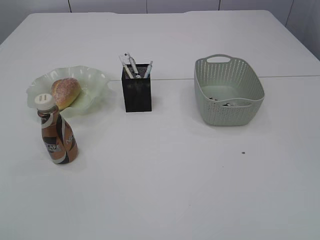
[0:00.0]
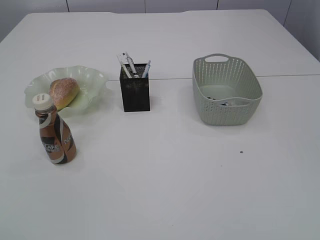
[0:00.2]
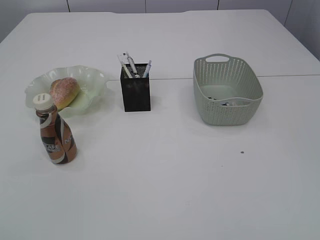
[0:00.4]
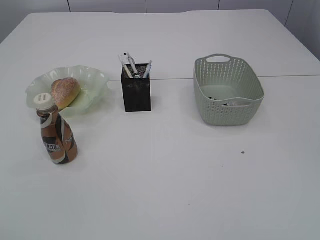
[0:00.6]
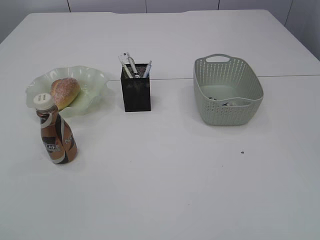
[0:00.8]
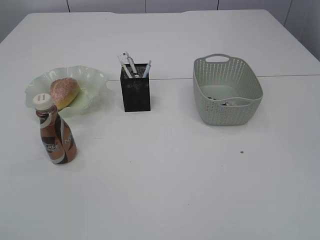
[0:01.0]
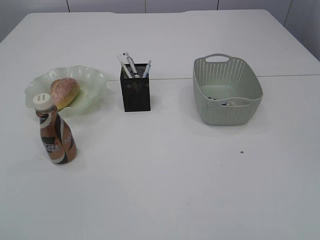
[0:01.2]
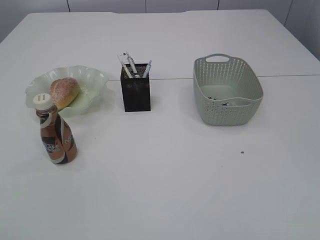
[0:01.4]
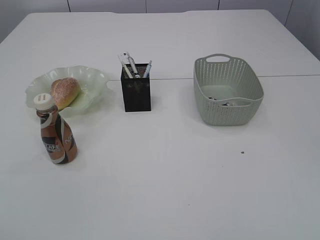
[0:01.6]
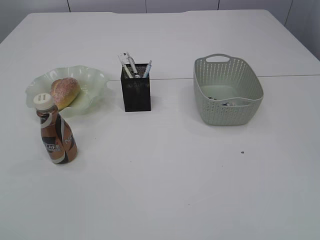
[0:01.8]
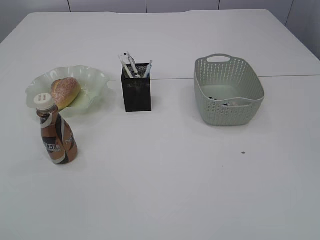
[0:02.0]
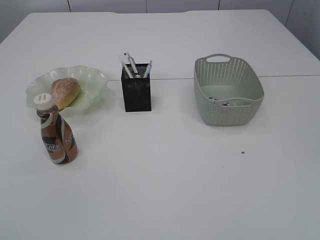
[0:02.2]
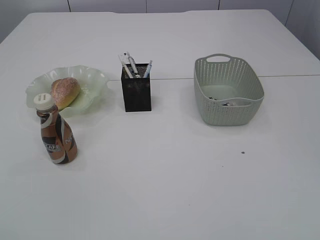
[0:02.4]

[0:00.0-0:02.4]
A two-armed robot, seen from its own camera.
0:00.0 to 0:01.2: The grippers stay close to where they were, moving slightly.
0:01.2 to 0:02.4: Neither gripper changes place.

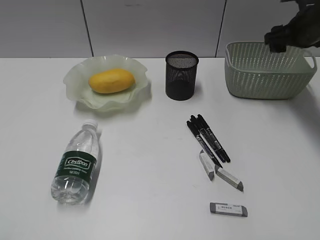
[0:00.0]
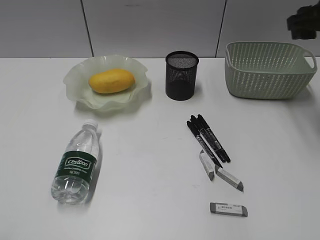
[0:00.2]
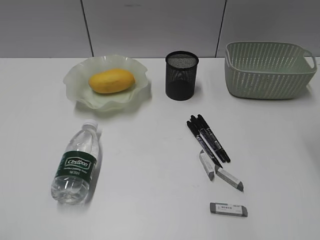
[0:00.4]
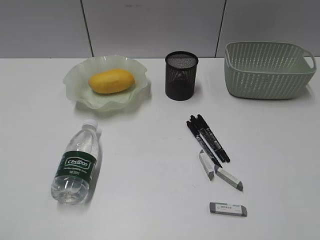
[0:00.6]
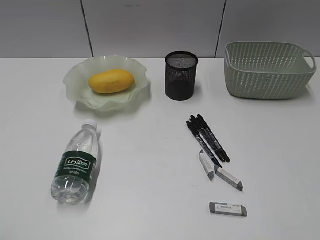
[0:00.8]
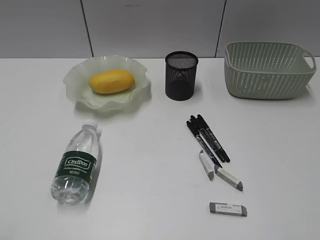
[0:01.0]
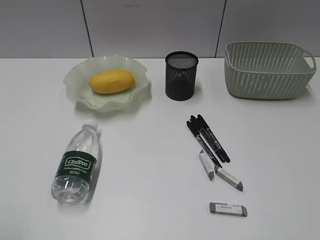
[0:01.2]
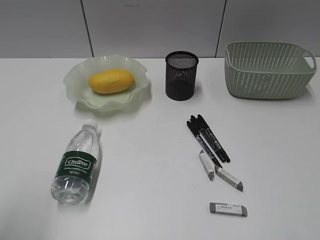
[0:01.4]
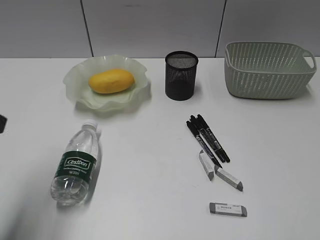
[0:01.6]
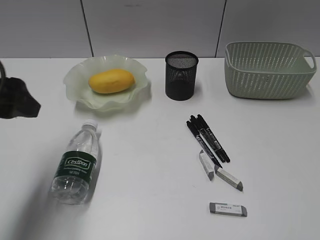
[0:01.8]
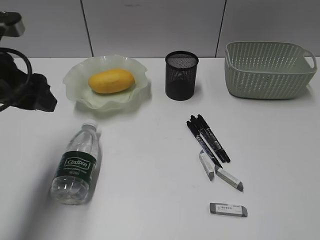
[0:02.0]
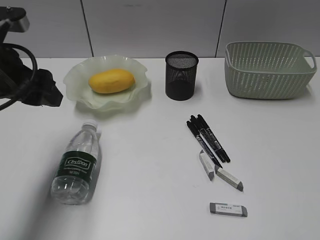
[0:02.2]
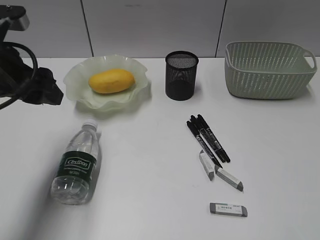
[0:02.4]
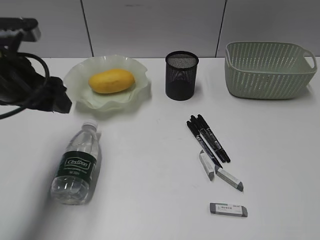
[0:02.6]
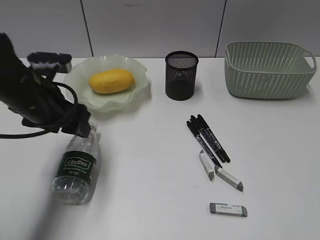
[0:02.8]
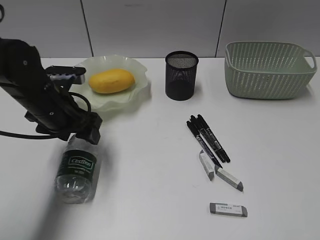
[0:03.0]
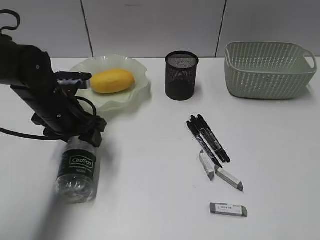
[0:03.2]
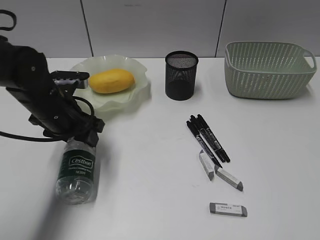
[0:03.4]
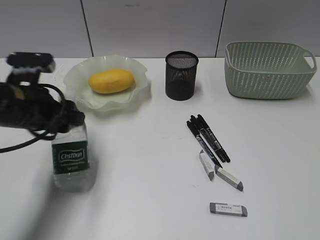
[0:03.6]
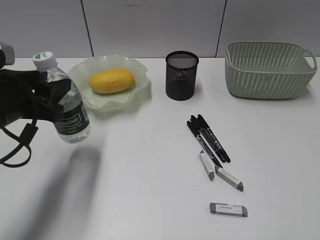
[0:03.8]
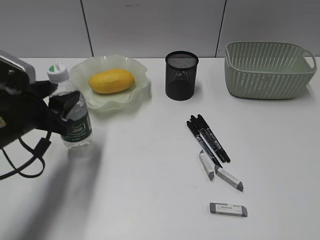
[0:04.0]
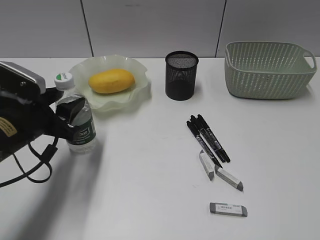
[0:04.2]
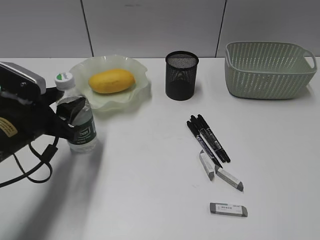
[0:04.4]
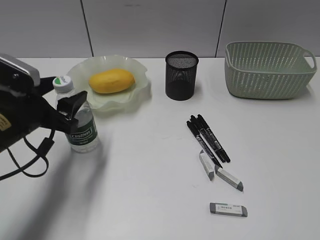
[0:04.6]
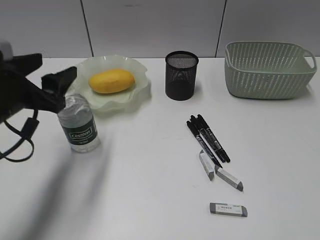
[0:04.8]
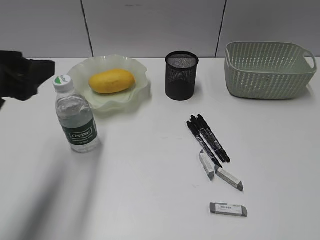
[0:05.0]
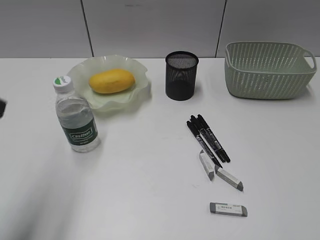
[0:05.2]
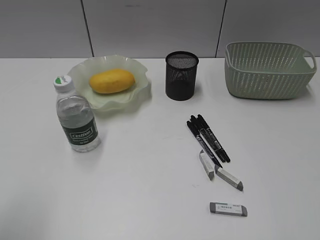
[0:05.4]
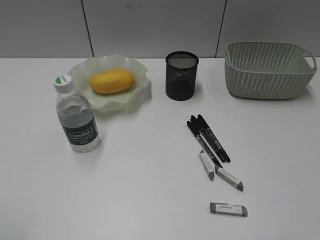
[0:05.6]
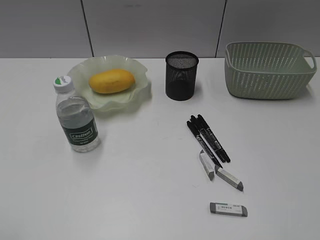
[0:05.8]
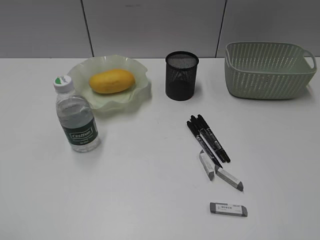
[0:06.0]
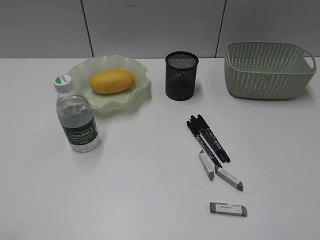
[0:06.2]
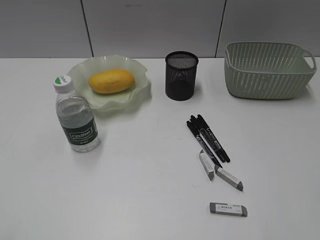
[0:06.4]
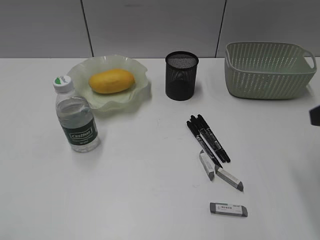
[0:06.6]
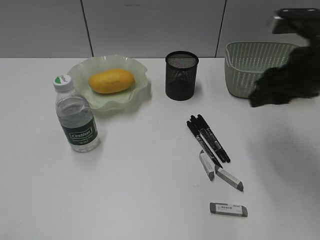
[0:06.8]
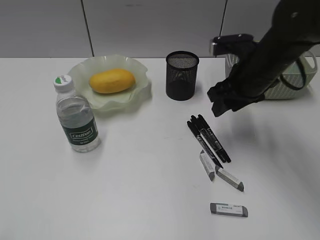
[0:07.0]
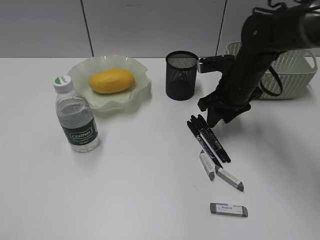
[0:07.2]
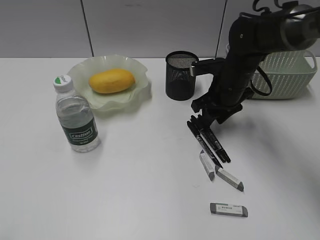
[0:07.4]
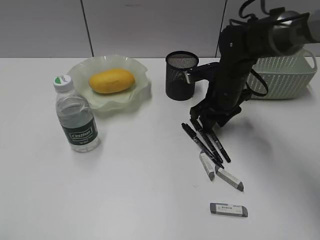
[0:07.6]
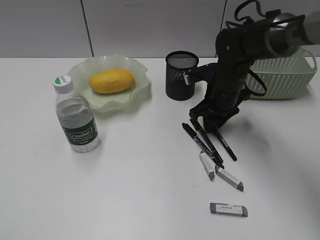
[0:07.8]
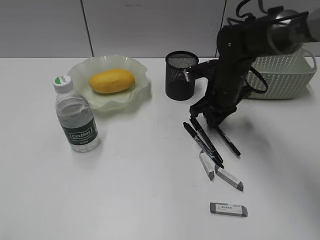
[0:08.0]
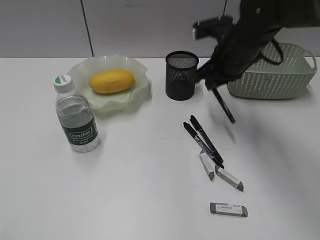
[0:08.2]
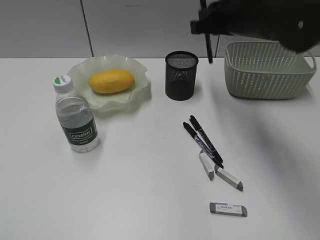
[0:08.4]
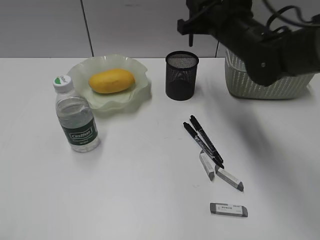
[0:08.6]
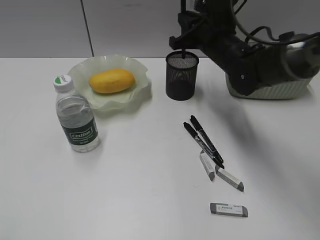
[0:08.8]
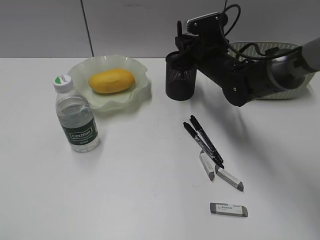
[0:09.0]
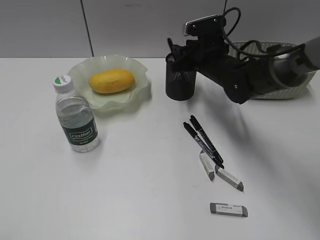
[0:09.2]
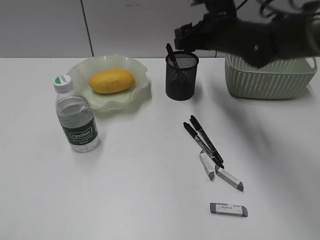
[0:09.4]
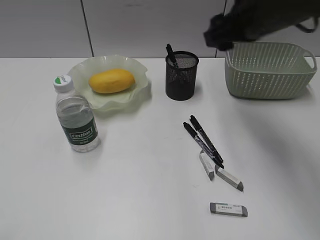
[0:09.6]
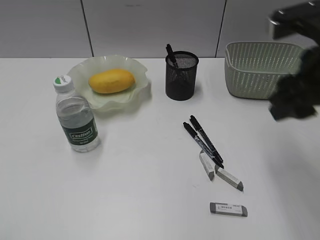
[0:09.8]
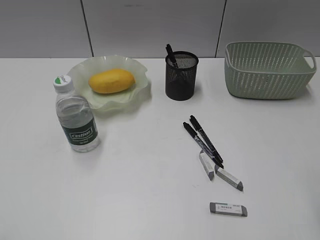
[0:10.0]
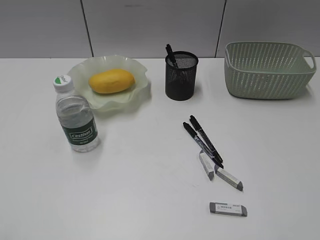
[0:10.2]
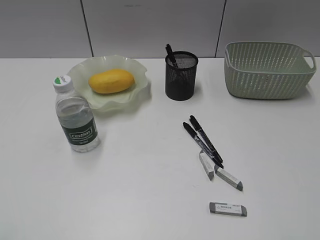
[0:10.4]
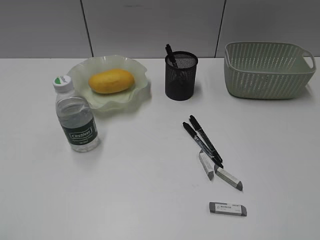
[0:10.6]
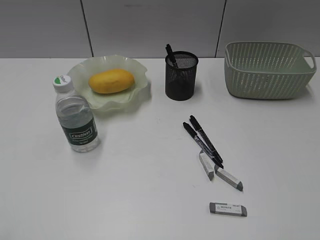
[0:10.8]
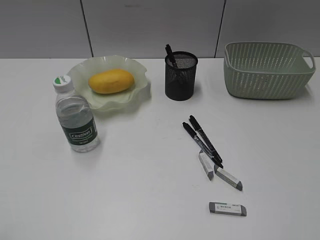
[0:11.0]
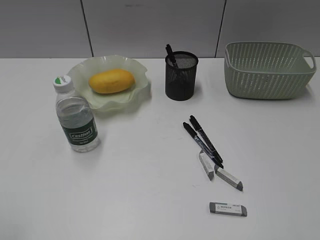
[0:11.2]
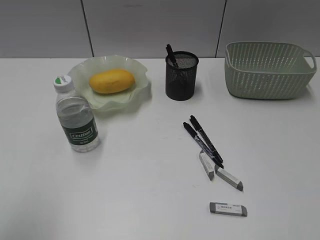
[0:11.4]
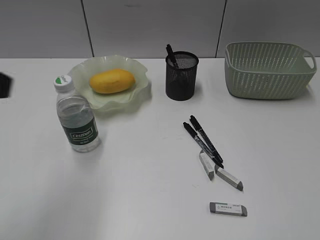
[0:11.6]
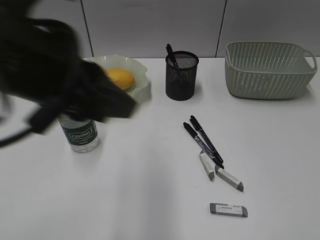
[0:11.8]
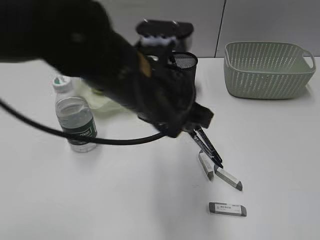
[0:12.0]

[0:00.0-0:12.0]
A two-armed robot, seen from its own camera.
Step, 0:00.2 to 0:03.2: Grasp the bottle with left gripper.
Step, 0:03.4 to 0:04.6: Stand the bottle with left gripper.
Step, 0:04.8 to 0:07.8: Grasp the black pen with right gripper.
Step, 0:08.0 to 0:09.2: Place the black pen in pen holder with right gripper.
0:00.0 to 0:01.6: The right gripper is displaced backward by about 50 cm, while the left gripper moves forward, about 15 cm, and opens up.
0:01.6 to 0:03.0: The left gripper travels forward, downward and to the right by some 20 cm.
0:03.0 to 0:04.4: The left gripper travels backward by some 5 cm, and closes its fingers.
0:04.4 to 0:06.0: The left gripper goes about 30 cm backward, upward and to the left, and opens, then closes once more.
0:06.0 to 0:07.6: The right gripper goes approximately 50 cm forward, downward and to the left.
0:07.6 to 0:09.0: The right gripper moves about 15 cm upward and comes back, and closes its fingers.
0:09.0 to 0:10.4: The right gripper travels backward and to the right by some 50 cm, and opens up.
0:10.4 to 0:12.0: The left gripper goes some 40 cm to the right and forward.

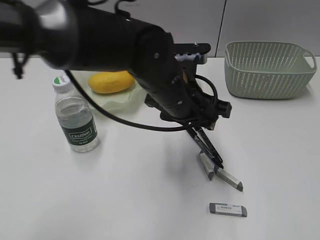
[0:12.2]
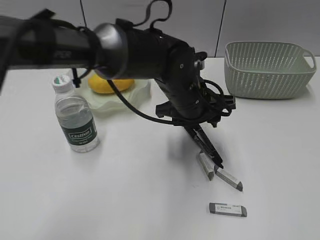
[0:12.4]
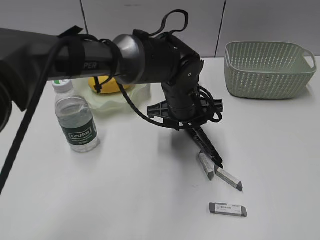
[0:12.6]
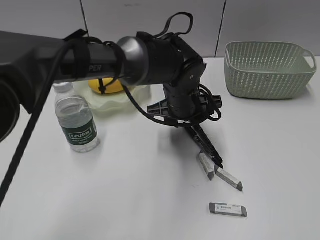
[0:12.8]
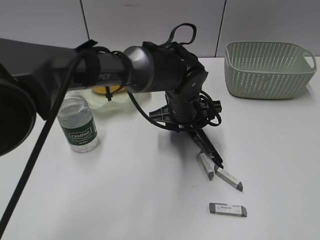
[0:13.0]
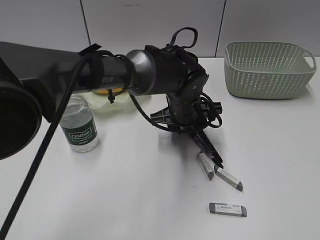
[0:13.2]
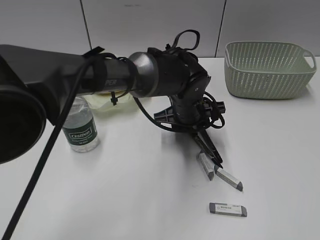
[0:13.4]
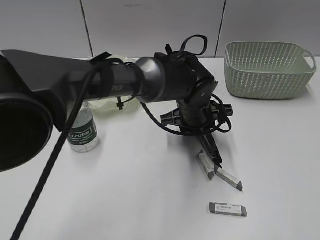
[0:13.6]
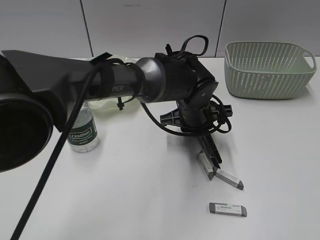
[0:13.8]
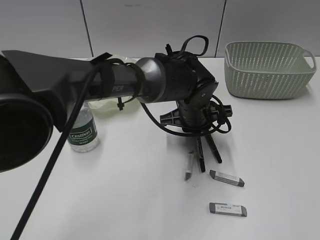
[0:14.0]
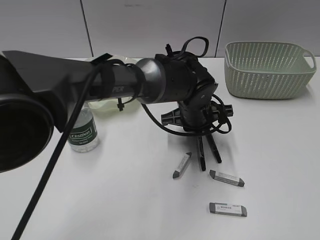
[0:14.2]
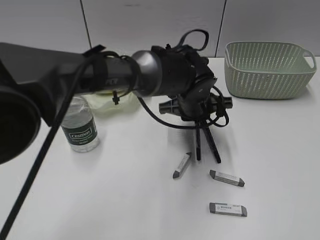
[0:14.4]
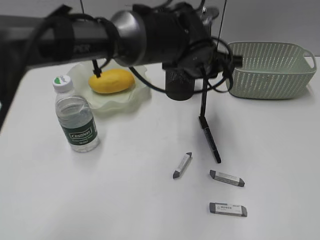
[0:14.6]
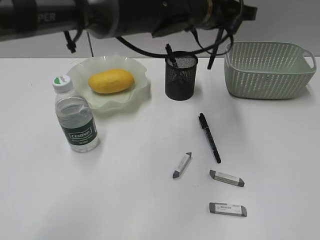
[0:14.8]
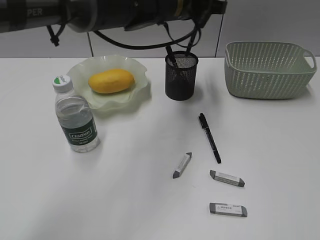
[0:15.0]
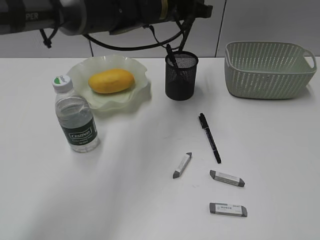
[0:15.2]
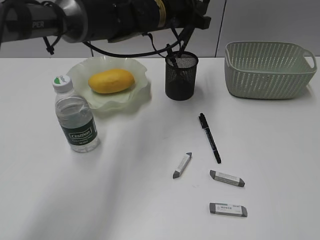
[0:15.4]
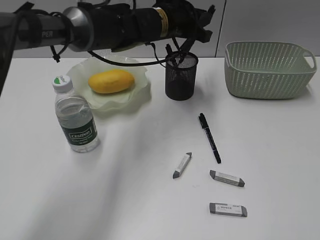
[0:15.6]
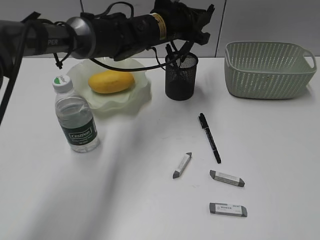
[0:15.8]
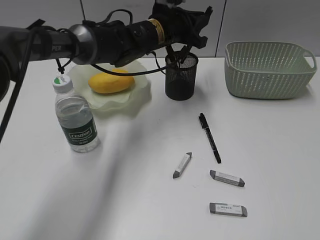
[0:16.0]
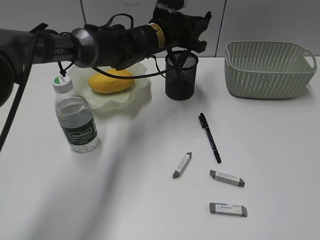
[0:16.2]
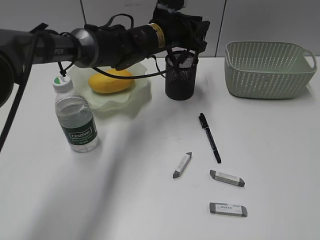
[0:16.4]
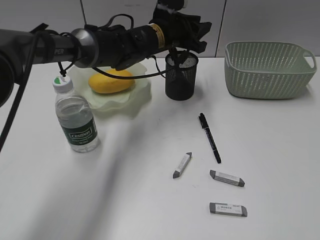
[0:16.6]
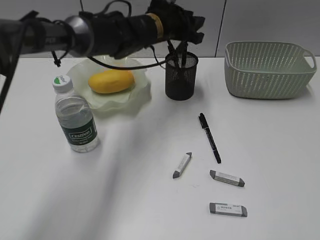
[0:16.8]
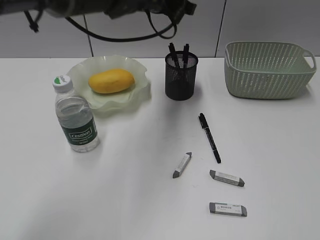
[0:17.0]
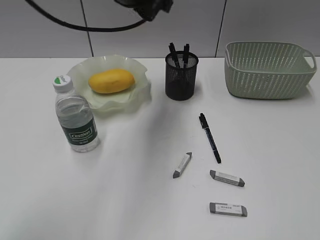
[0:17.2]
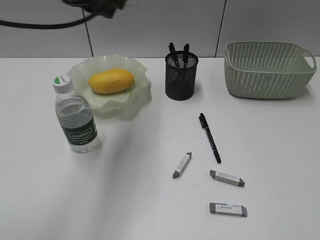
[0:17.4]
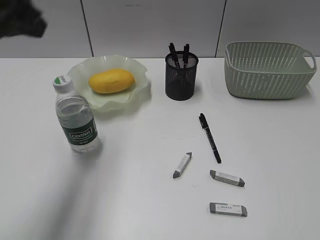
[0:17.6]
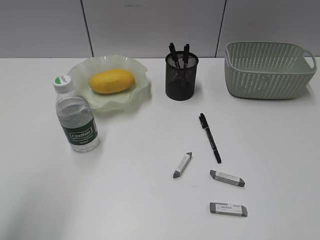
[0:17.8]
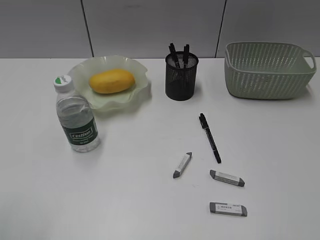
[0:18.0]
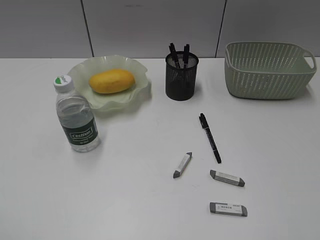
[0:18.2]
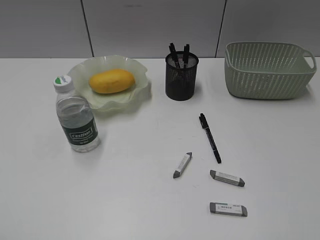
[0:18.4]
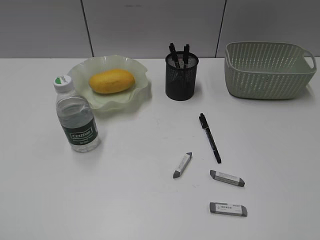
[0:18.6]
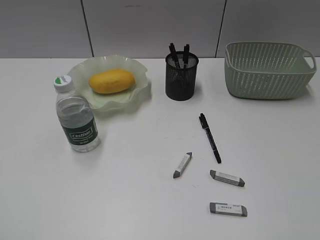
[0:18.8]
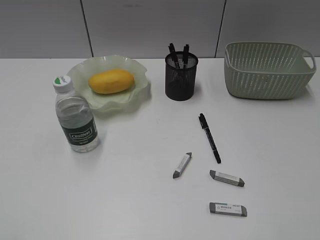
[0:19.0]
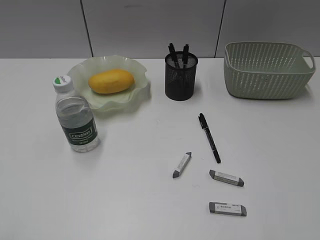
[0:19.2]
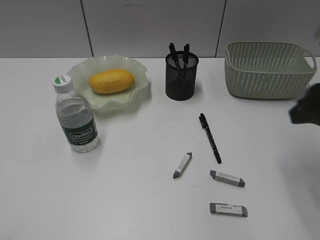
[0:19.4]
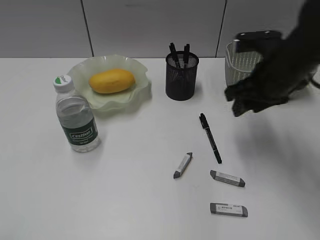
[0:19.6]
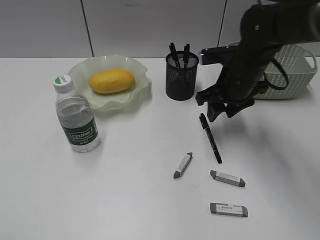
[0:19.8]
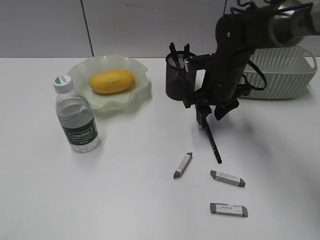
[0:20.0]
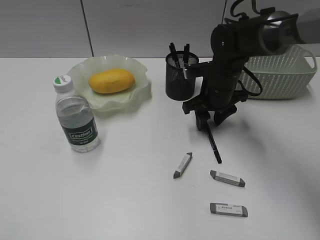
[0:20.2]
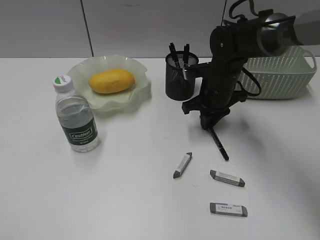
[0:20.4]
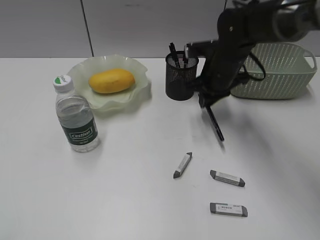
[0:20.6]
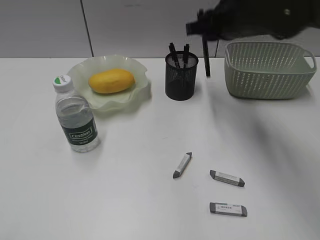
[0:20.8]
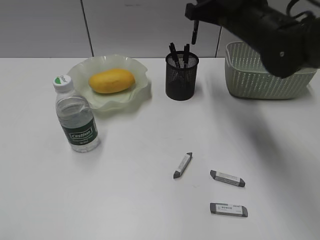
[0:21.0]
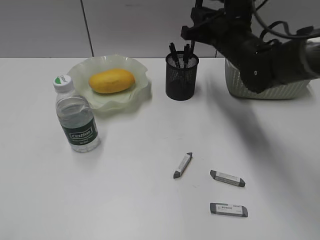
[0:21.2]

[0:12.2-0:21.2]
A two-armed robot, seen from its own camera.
Step, 0:12.2 to 0:14.2: Grasp the black pen with left gripper.
Step, 0:14.4 to 0:16.6: Place the black pen in pen holder with left gripper.
Step, 0:16.8 to 0:20.4: Grasp the black pen with right gripper.
0:12.2 to 0:13.8: The left gripper goes roughly 10 cm downward, forward and to the right, and closes up.
0:13.8 to 0:15.2: The left gripper is displaced upward, forward and to the left by about 20 cm.
0:15.2 to 0:16.6: The left gripper is displaced downward by about 5 cm, and opens.
0:16.6 to 0:18.2: The left gripper is displaced backward and to the left by about 60 cm, and opens its fingers.
0:18.2 to 0:19.8: The left gripper closes up. The right gripper heads forward and to the left, covering roughly 40 cm.
0:19.8 to 0:21.2: The right gripper moves up and down over roughly 15 cm, changing direction 2 times, and closes up.
